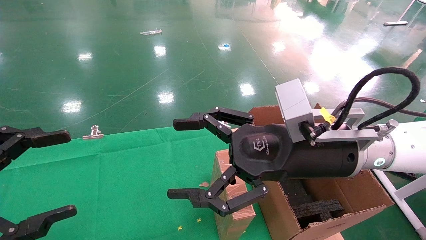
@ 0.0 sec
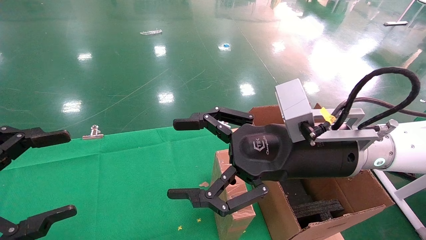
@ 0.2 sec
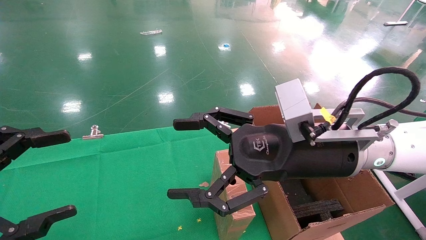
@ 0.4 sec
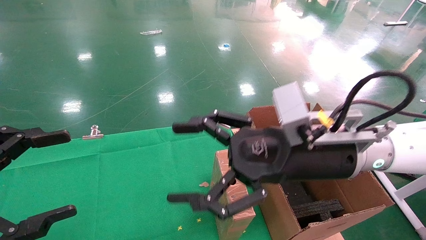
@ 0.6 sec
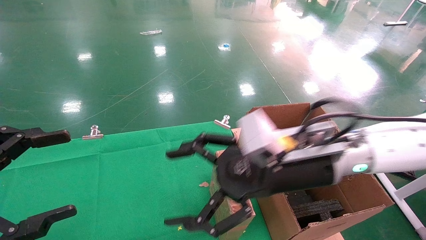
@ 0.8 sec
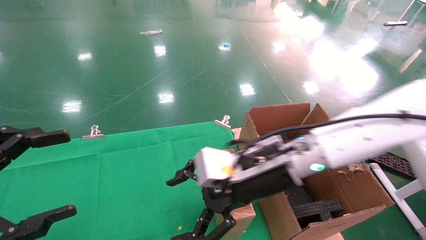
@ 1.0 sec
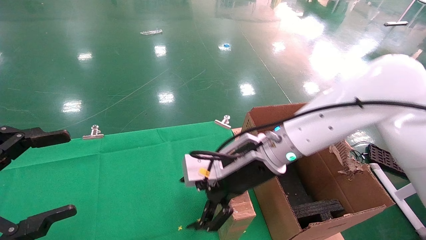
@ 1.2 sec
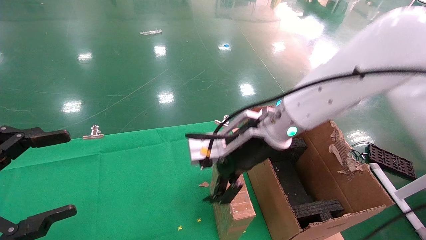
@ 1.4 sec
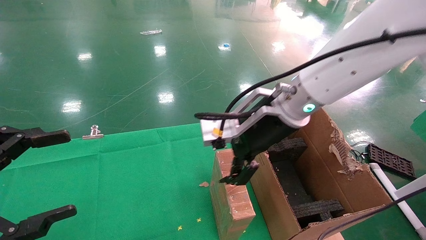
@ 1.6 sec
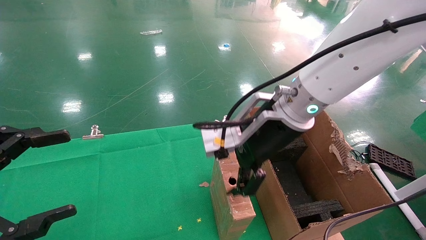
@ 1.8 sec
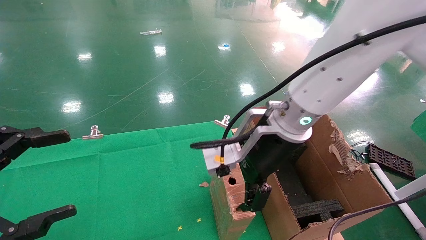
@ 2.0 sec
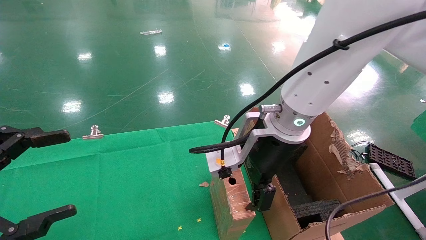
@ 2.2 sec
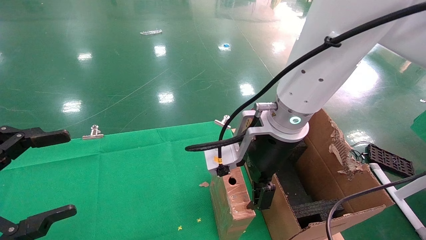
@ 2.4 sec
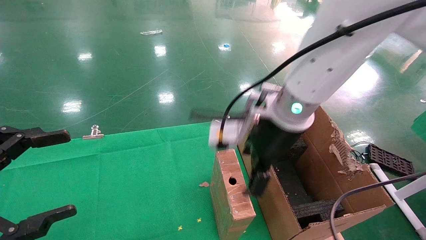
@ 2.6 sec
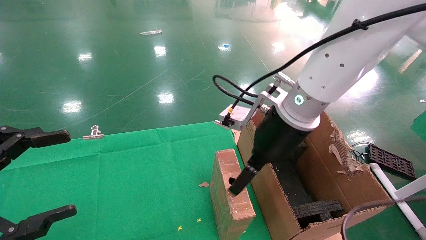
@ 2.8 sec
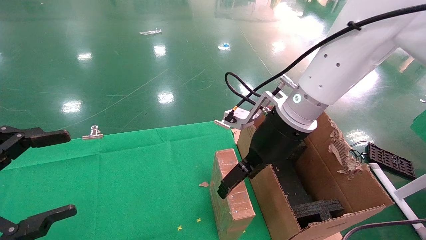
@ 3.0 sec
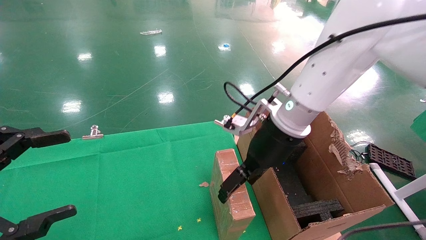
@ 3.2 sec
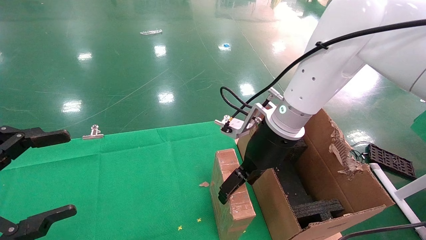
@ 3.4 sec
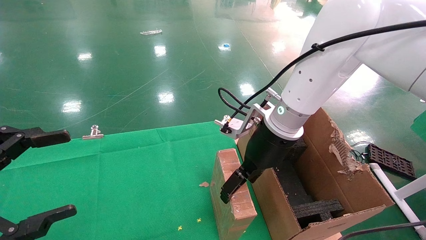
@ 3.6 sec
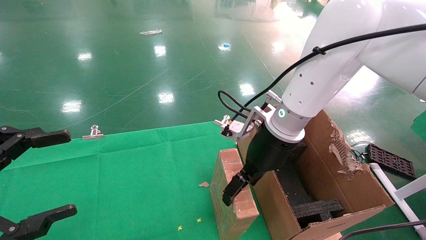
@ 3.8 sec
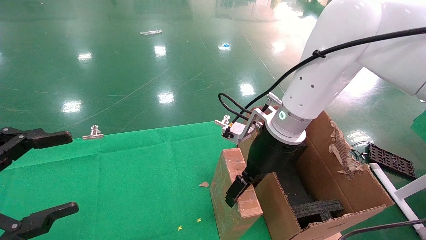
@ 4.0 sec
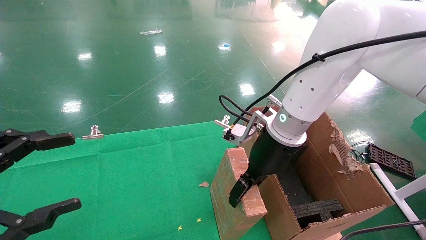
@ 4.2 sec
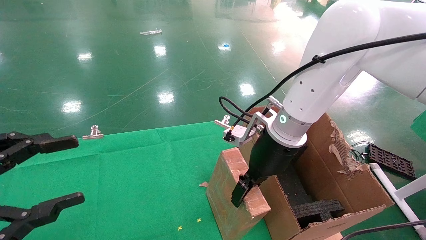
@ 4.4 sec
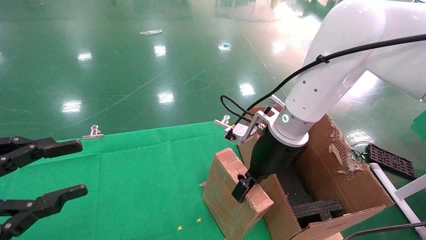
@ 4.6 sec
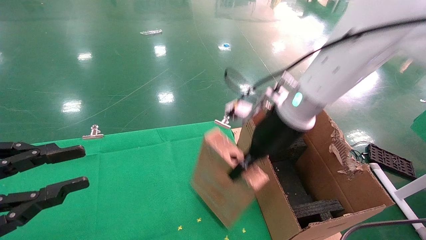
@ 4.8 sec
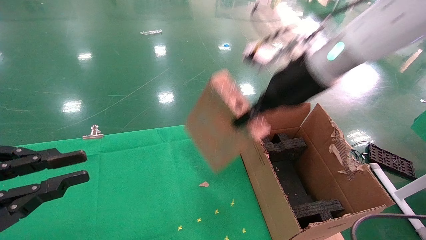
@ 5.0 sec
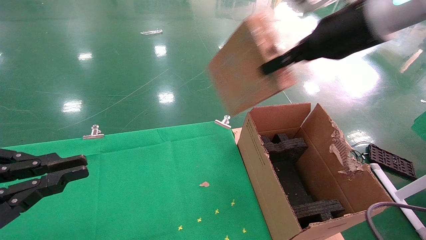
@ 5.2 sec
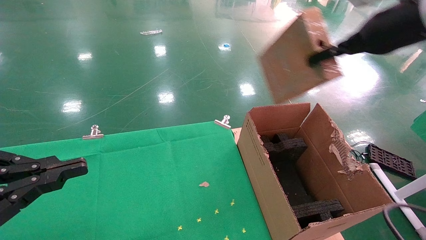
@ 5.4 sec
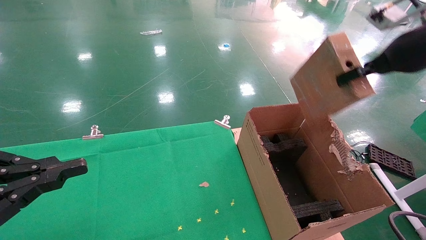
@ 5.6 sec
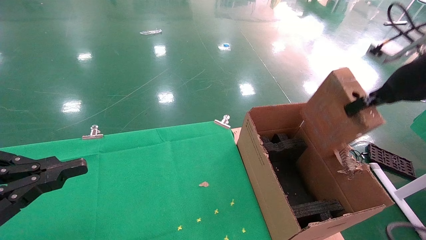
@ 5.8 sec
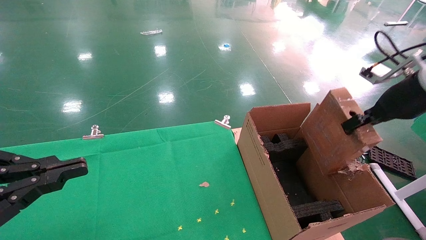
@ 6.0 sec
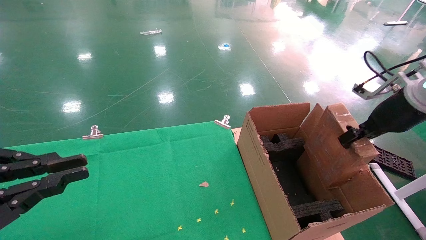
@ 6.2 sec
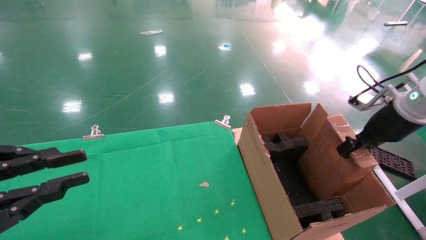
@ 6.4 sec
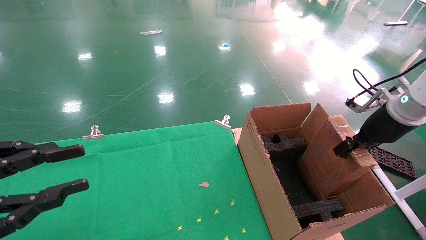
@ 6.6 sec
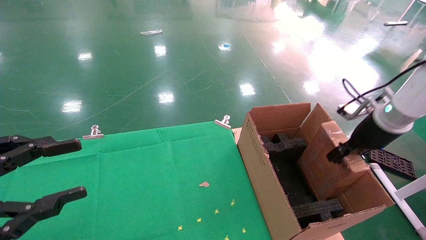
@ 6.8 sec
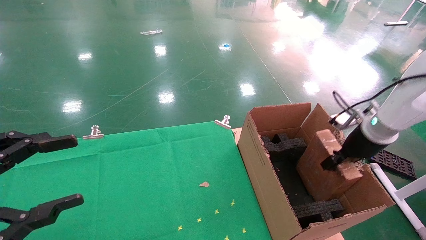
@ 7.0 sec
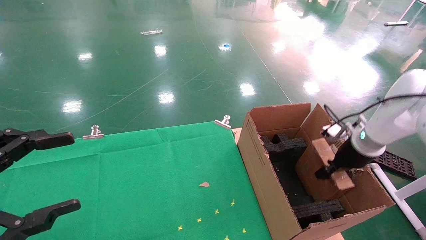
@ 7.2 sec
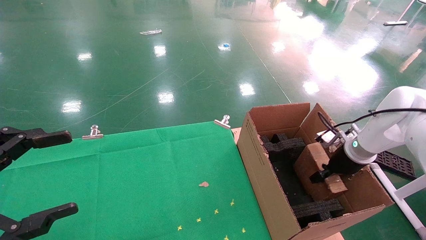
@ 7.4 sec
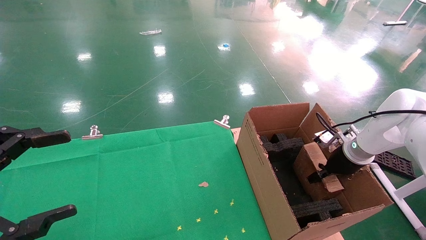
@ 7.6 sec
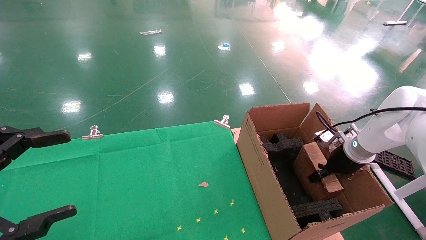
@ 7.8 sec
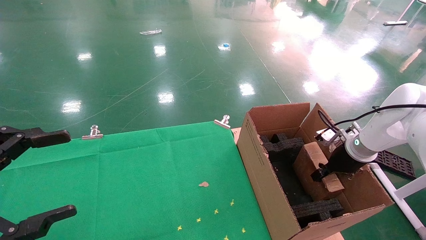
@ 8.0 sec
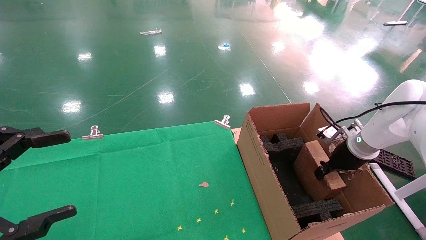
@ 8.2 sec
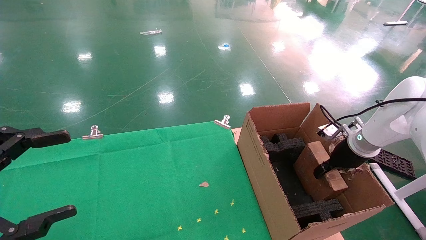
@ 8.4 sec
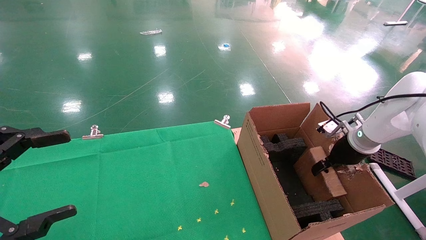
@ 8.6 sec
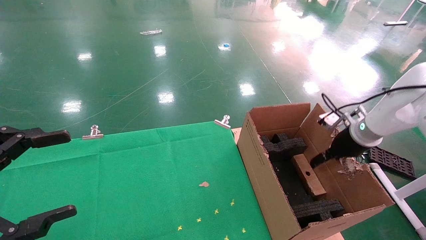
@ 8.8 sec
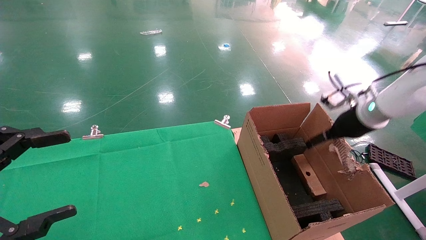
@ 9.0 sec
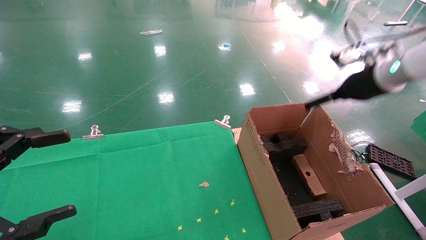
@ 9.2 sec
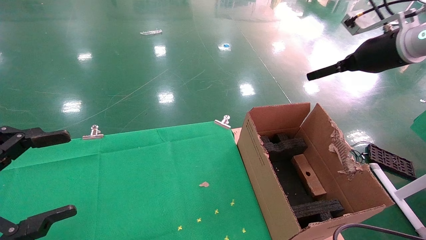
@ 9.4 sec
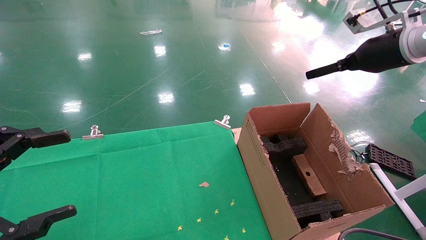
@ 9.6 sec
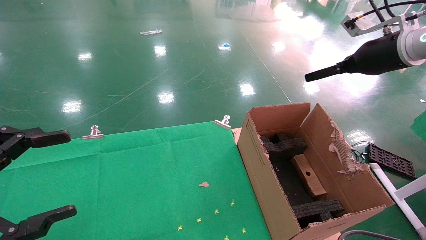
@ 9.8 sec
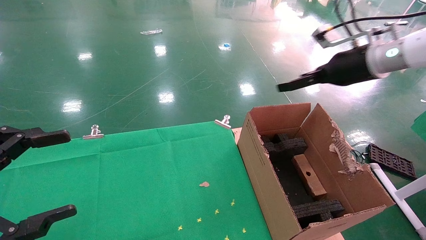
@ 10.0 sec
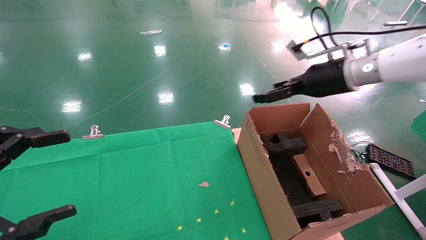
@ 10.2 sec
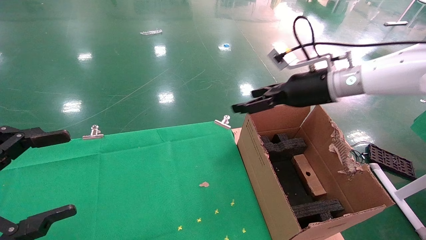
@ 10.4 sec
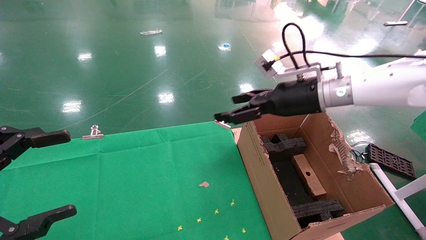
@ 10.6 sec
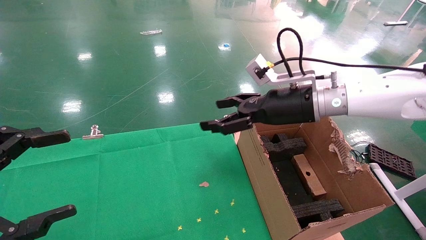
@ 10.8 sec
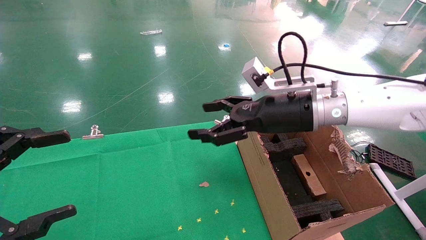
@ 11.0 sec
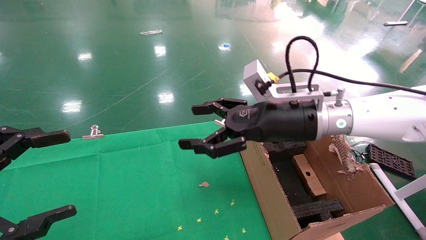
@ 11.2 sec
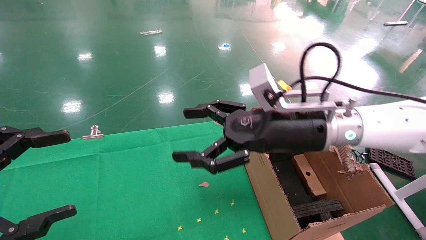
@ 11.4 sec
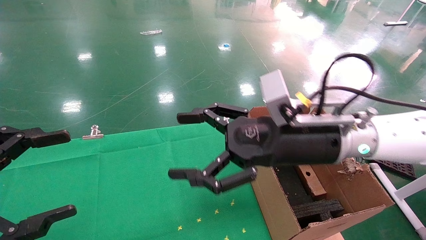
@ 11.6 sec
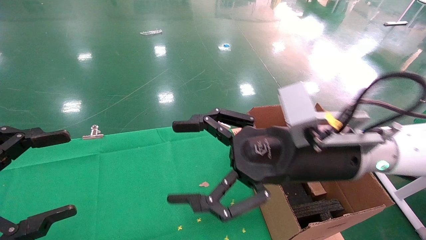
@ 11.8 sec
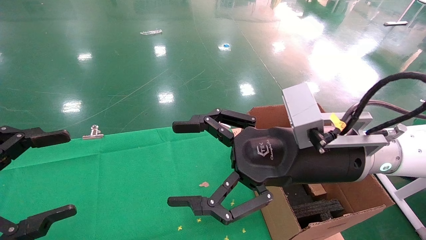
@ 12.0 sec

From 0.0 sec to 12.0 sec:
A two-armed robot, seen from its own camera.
Task of the whole recording: using a robotic arm to pick up a cardboard box and palace it the carton.
Step, from 1.0 sec to 4.8 sec: Pick up the mouse and the power cord paper box.
Step, from 5.0 sec to 8.8 sec: Place the mouse and the power cord paper box into the container.
From 0.0 sec to 1.6 sec: The right gripper travels forward and to the left by roughly 10 cm.
From 3.0 sec to 4.4 sec: The right gripper closes its fingers.
From 4.4 sec to 6.0 sec: The right gripper travels to the right by some 25 cm, and closes. The left gripper closes its fingers.
From 6.0 sec to 7.6 sec: The left gripper opens; the right gripper travels downward and forward by some 20 cm.
From 7.6 sec to 9.0 sec: The right gripper moves upward, approximately 10 cm, and opens up.
From 9.0 sec to 10.4 sec: The right gripper moves to the left, approximately 15 cm.
From 10.4 sec to 12.0 sec: The right gripper heads backward and to the left, covering roughly 20 cm.

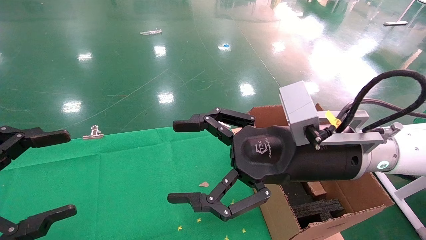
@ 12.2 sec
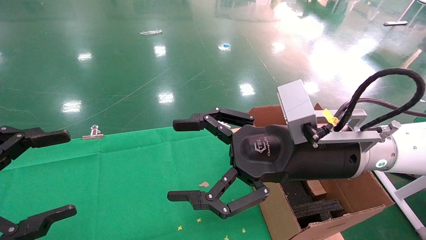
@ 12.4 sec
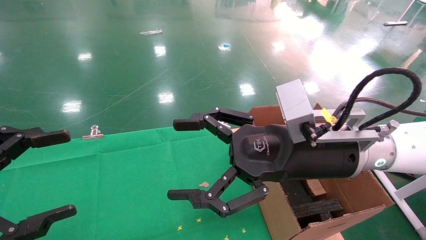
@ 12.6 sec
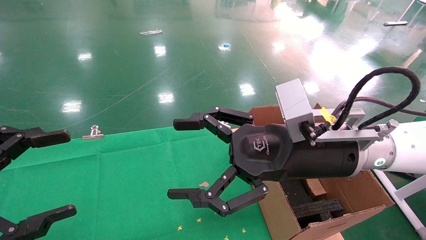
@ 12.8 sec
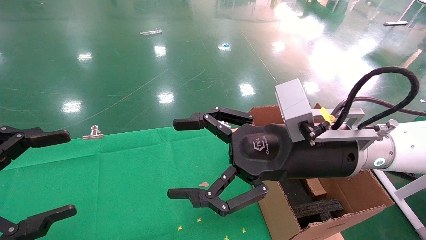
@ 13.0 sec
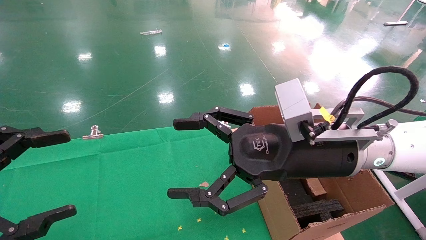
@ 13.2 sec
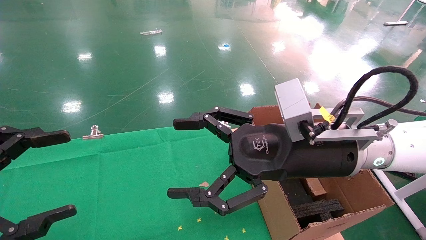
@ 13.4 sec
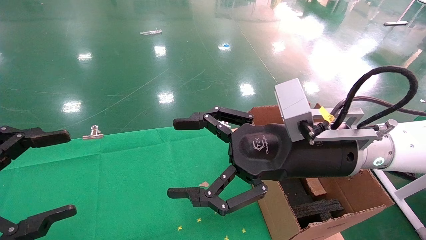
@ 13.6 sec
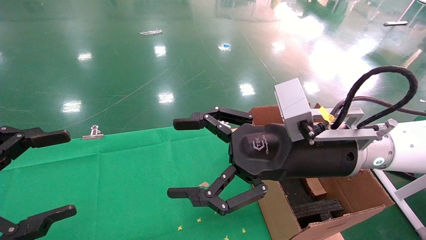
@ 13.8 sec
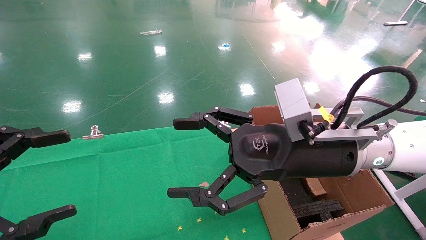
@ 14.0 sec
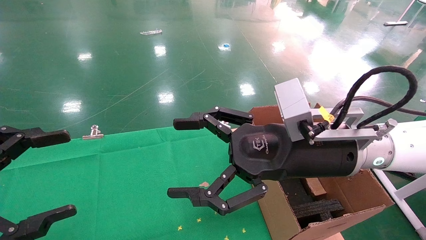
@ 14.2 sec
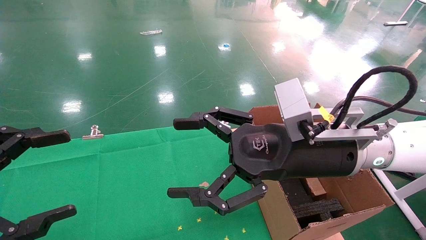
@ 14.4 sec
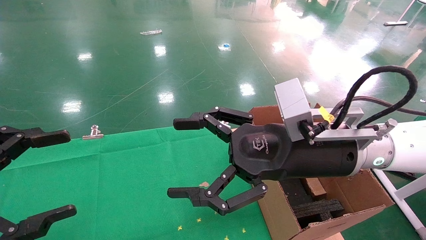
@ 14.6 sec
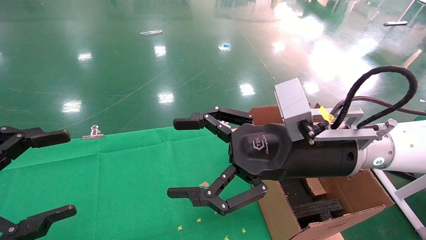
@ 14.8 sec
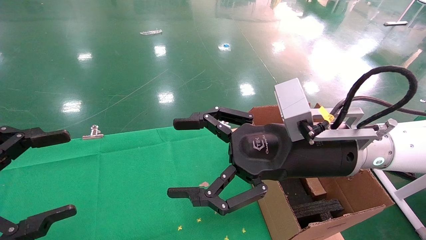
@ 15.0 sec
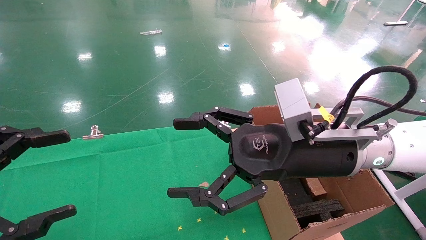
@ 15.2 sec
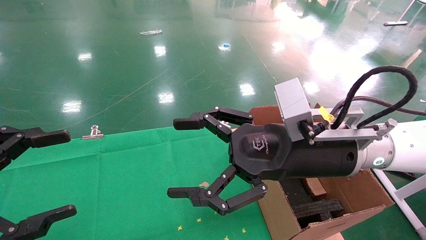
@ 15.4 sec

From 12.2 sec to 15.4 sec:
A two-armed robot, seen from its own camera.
Task of the whole recording: using a robotic arm to pick up a cardboard box and palace it the carton.
From 12.2 sec to 15.4 sec: The two grippers keep their place.
